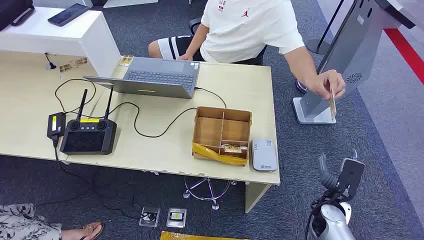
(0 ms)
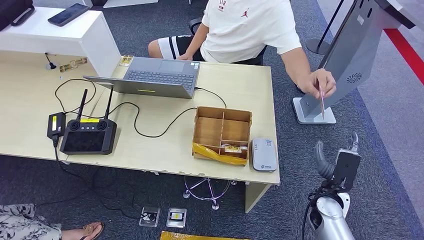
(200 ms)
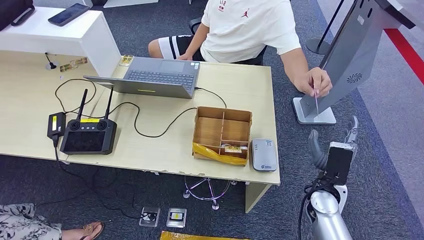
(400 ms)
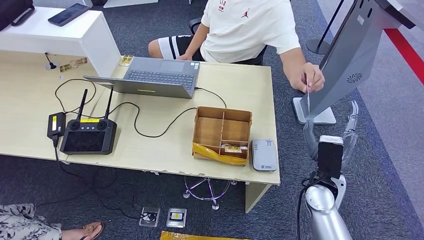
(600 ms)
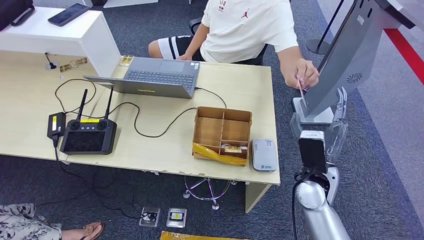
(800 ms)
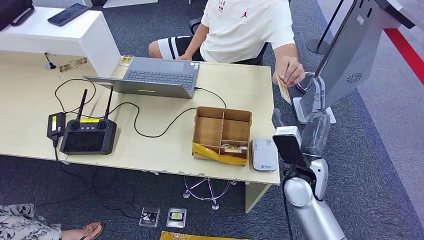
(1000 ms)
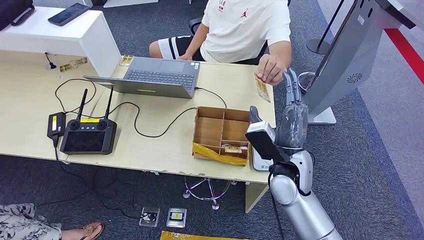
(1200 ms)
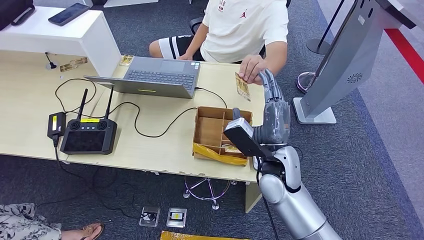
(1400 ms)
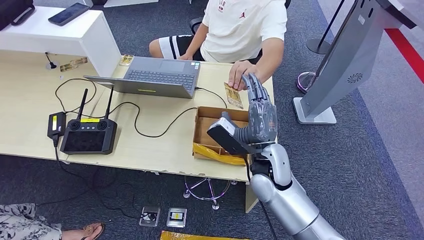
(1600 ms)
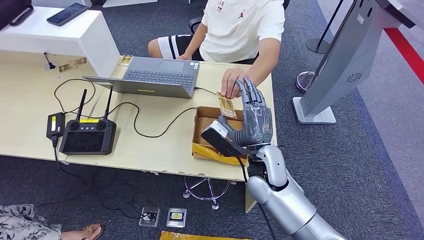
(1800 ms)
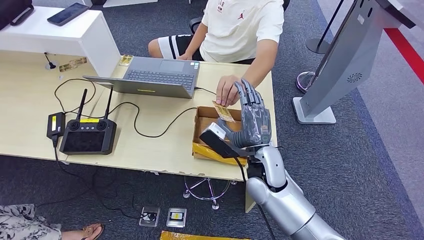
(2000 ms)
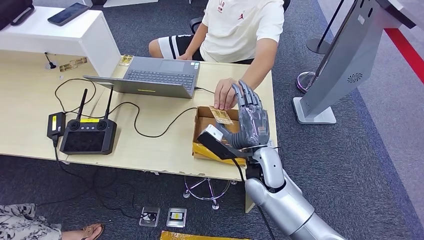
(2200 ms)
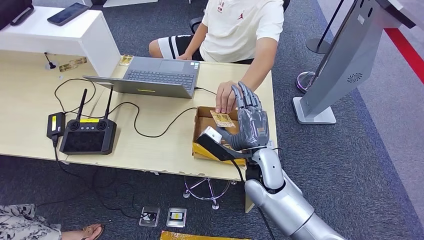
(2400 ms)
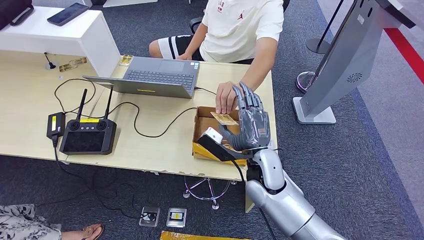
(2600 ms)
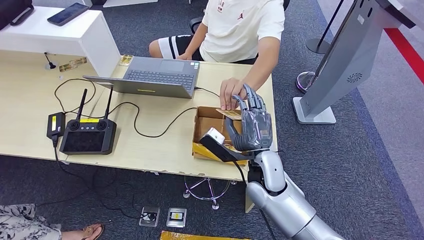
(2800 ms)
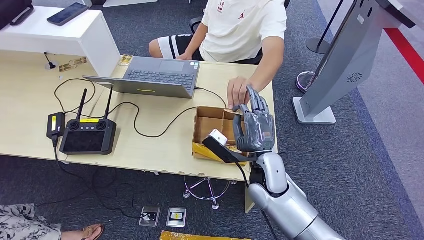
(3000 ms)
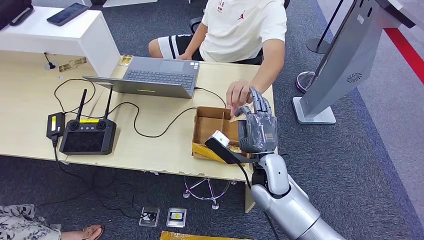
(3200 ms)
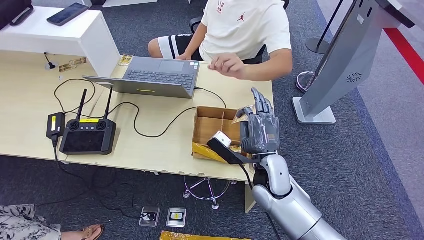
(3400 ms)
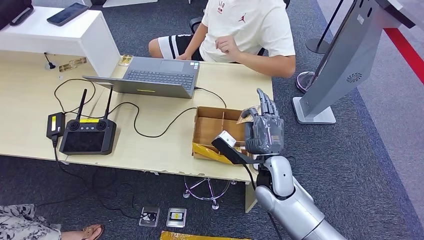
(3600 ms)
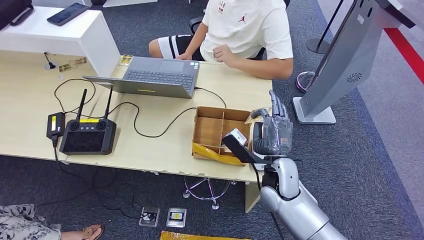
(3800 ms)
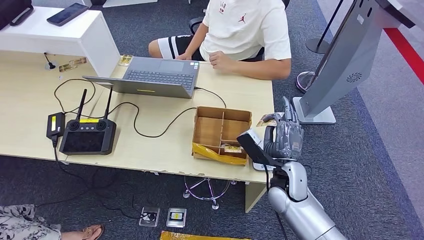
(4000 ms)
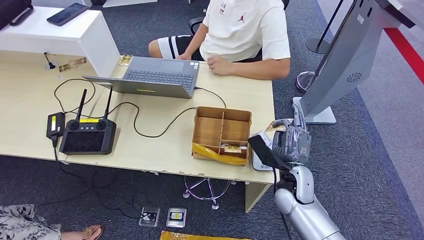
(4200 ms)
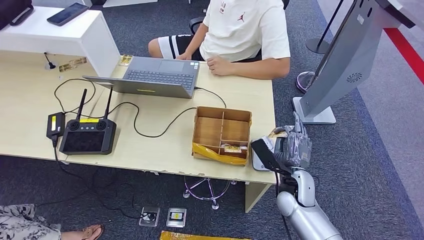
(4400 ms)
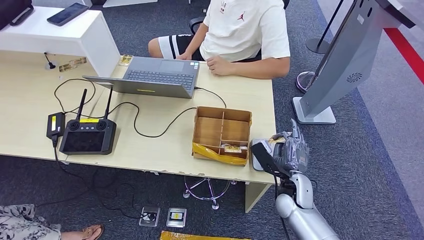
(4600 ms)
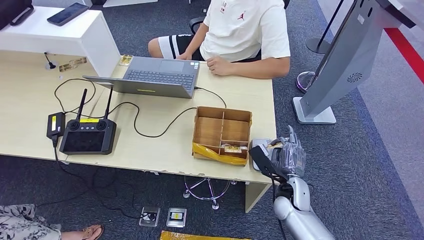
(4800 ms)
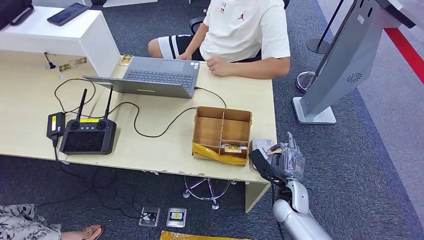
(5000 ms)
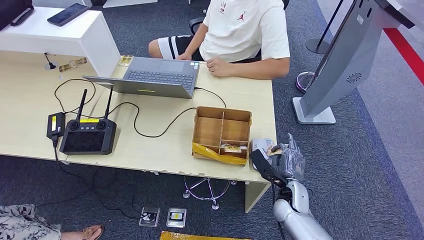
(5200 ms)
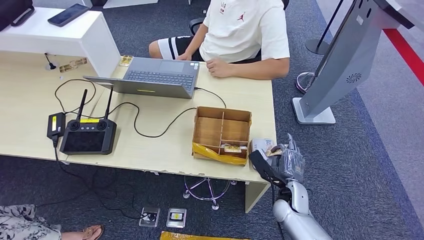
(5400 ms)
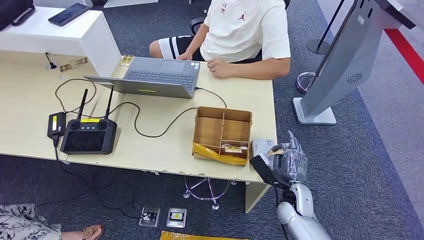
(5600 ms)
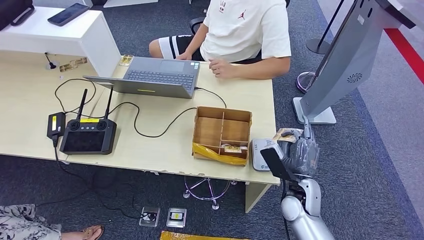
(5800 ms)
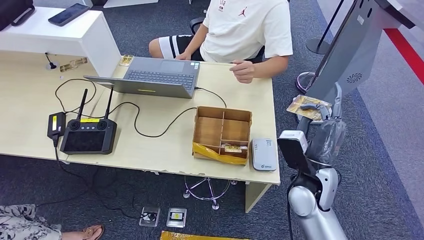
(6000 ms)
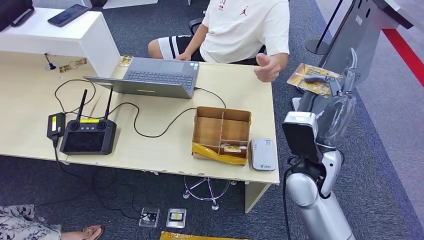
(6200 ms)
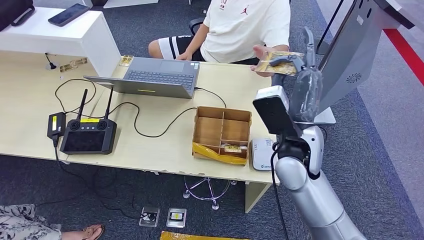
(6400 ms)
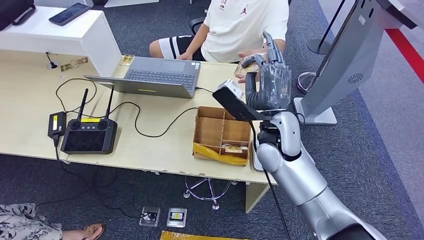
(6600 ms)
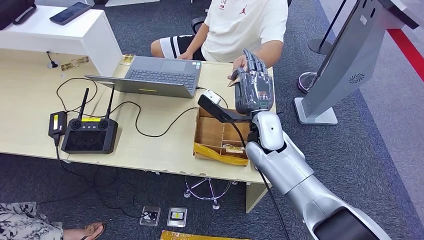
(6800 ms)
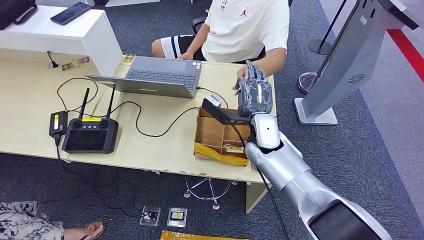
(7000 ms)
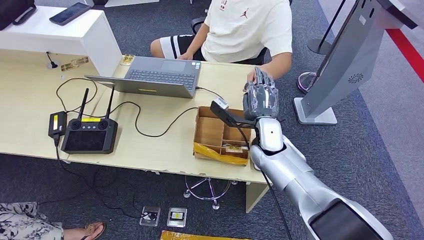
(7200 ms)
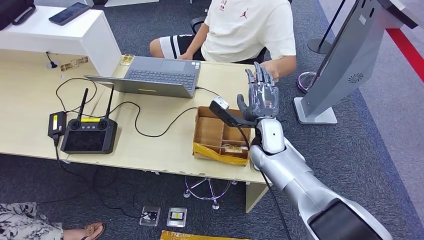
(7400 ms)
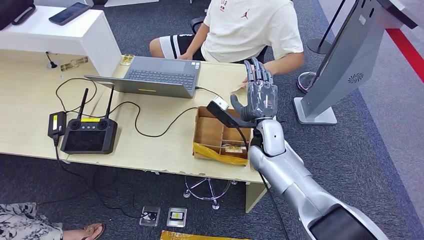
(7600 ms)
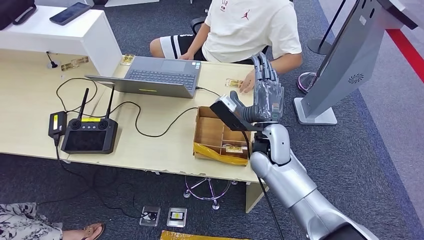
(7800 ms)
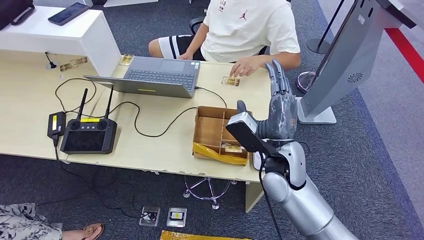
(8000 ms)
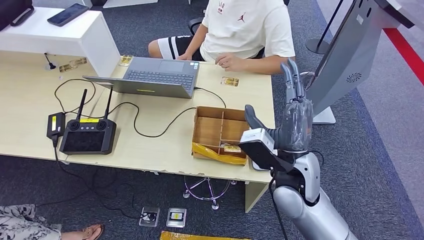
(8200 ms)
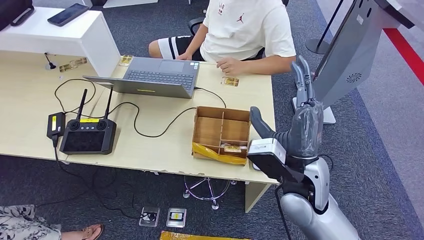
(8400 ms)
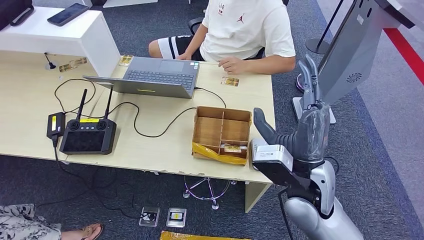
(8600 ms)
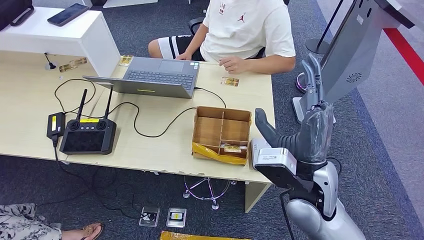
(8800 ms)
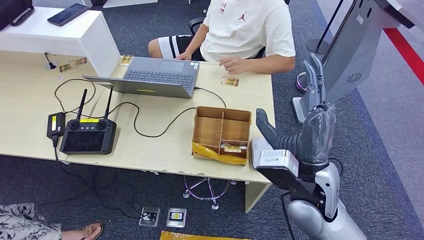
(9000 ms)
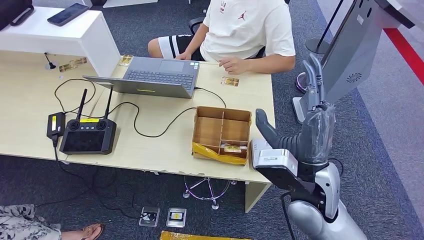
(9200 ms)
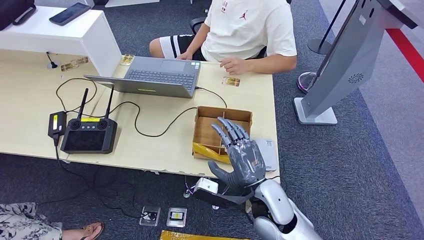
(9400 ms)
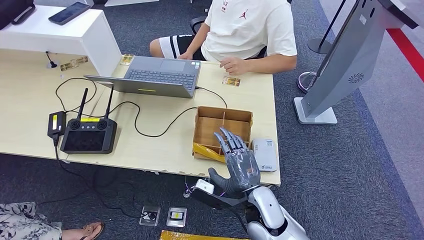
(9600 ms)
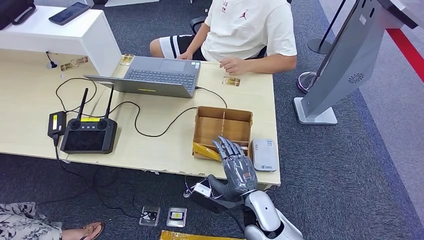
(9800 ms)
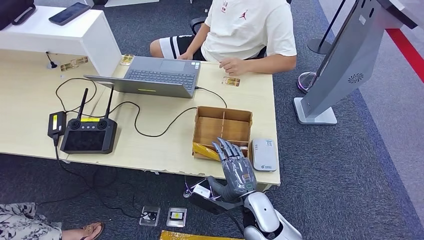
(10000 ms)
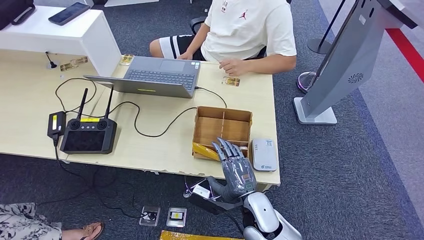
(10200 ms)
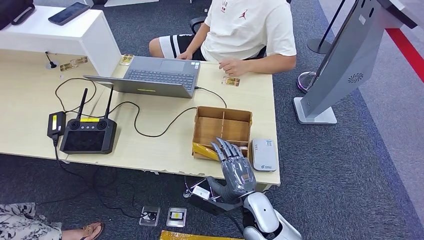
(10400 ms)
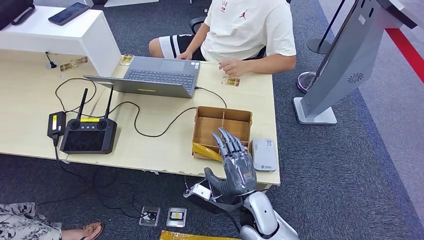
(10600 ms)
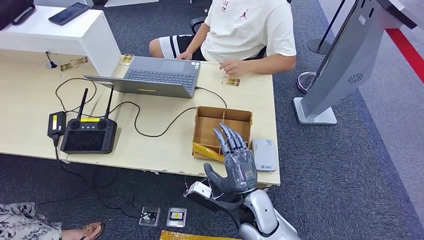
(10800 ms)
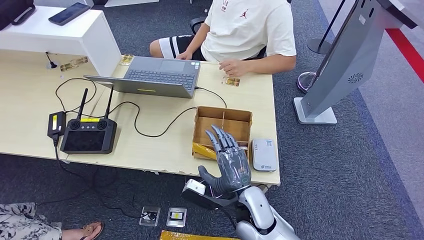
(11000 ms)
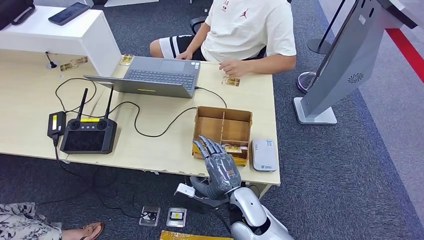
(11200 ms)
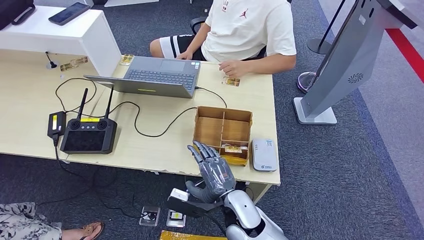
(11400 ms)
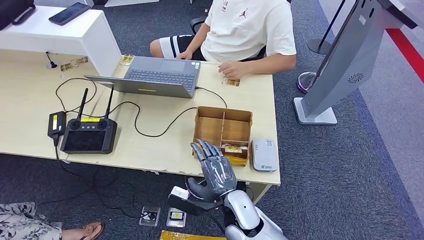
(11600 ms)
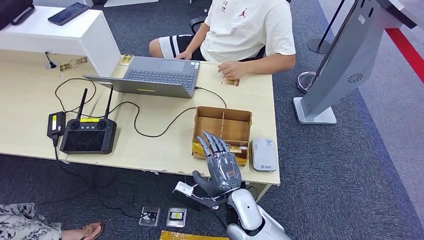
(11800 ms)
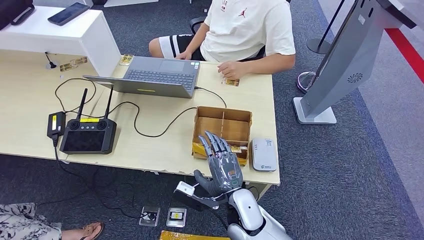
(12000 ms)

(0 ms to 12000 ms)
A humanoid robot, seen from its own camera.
Step, 0 ms - 2800 ms: Take the ID card from the person's hand.
Step, 3000 ms - 6000 ms: Place the ID card on the card reader.
Step, 6200 ms - 9600 ms: Hand the ID card to the person.
1600 ms - 3000 ms: There are only small adjustments of the hands.
3000 ms - 4400 ms: The right hand goes roughly 10 cm to the right and downward.
4400 ms - 6000 ms: The right hand travels upward by about 10 cm.
6000 ms - 7600 ms: The right hand travels forward and to the left by roughly 15 cm.
7600 ms - 9000 ms: The right hand heads backward and upward, covering about 15 cm.
9000 ms - 10400 ms: The right hand goes some 20 cm downward and to the left.
10400 ms - 12000 ms: The hands make only small movements.

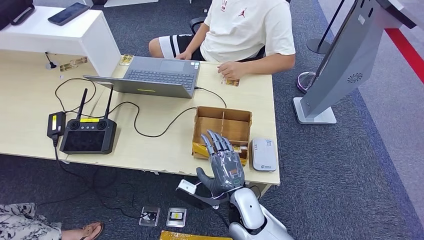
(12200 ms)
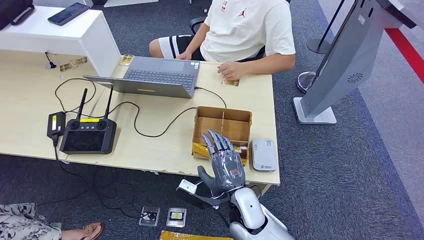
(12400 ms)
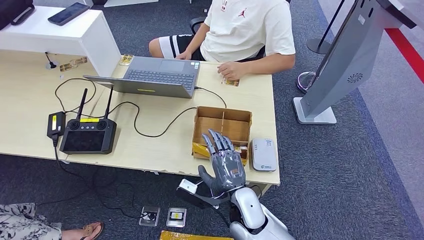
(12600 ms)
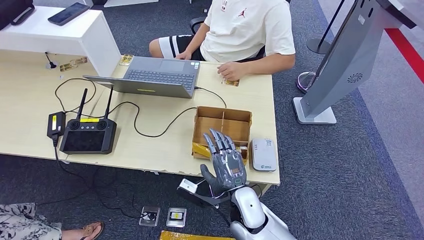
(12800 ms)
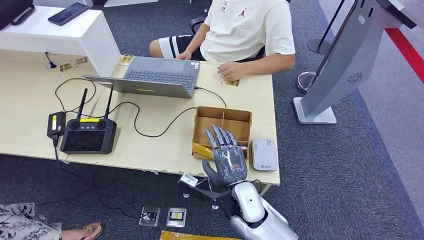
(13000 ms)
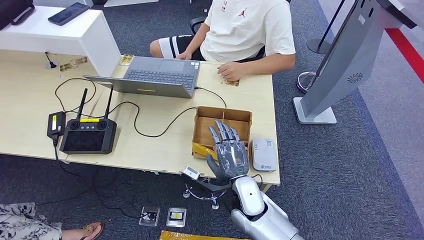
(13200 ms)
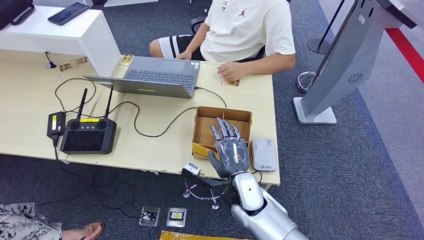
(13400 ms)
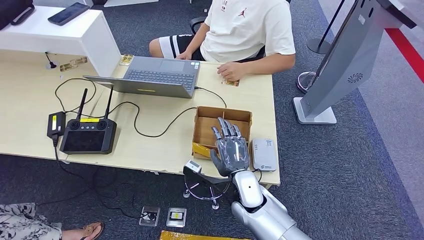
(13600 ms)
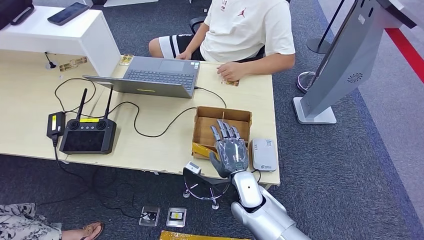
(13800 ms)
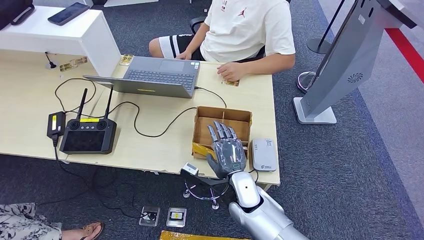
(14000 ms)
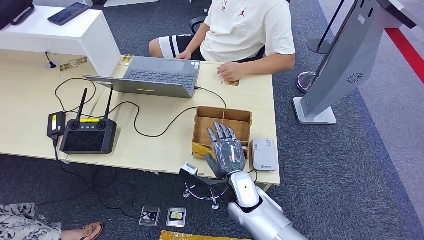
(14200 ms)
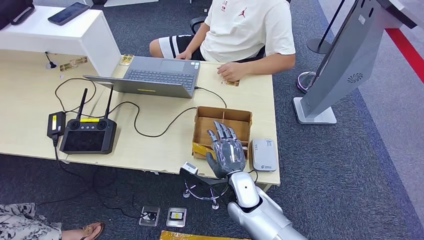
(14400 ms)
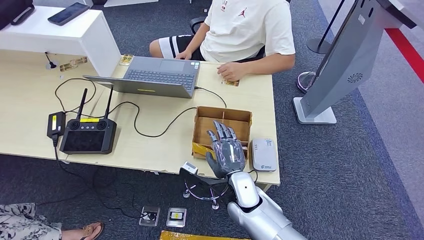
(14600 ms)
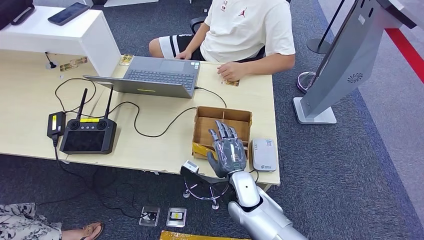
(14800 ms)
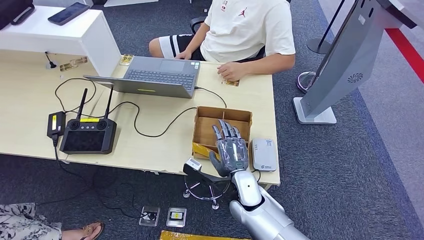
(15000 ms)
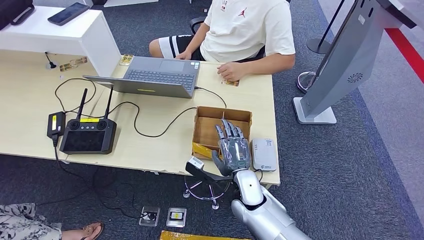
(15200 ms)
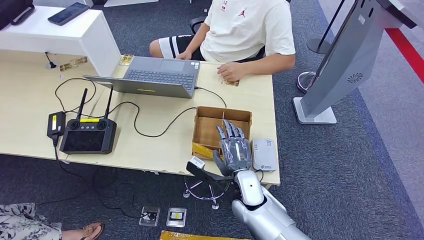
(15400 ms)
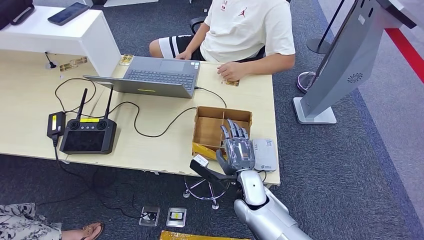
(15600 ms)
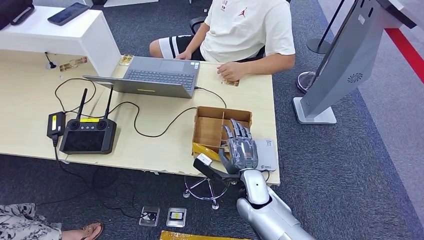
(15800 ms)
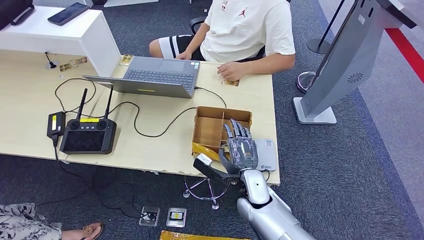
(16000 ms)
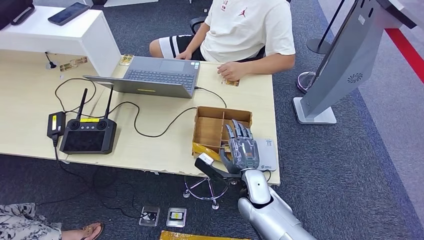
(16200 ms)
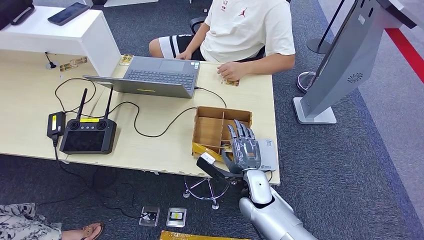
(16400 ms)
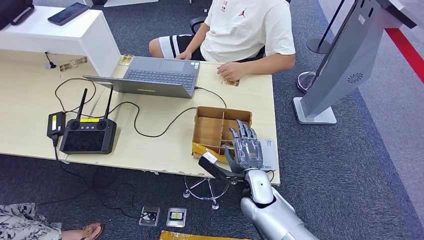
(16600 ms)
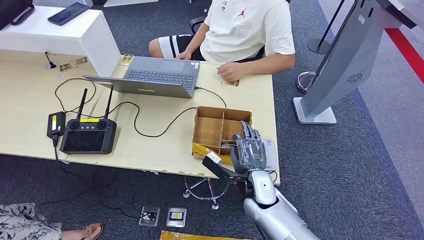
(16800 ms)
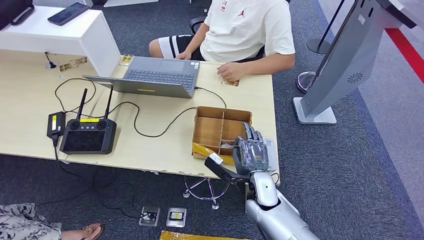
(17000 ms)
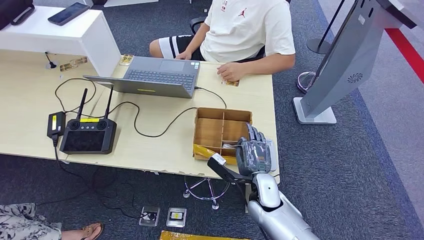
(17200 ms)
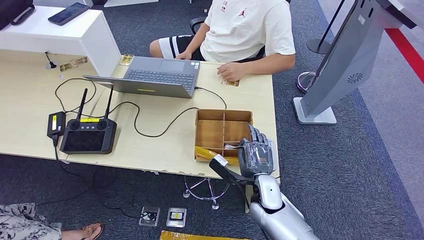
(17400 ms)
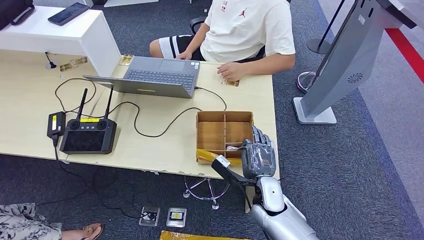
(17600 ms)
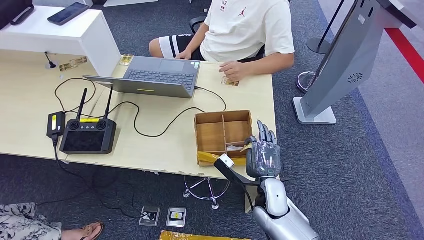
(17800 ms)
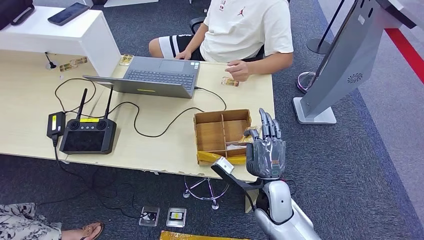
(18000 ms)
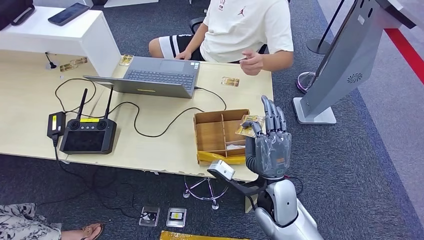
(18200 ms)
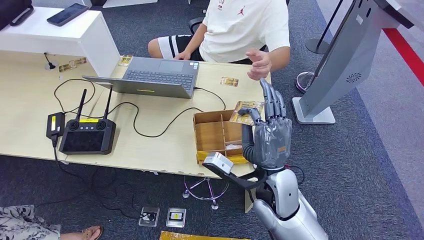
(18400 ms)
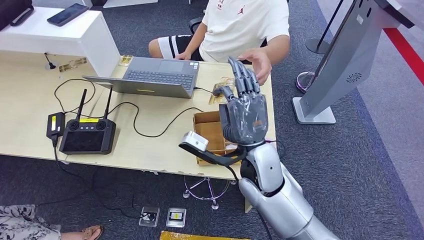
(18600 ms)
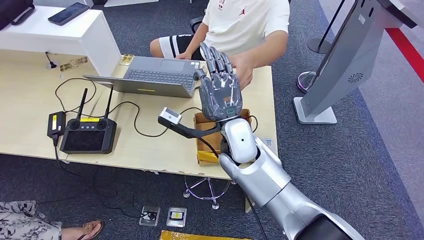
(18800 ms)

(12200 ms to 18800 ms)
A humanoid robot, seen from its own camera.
12200 ms - 13800 ms: The right hand shifts by roughly 5 cm.
13800 ms - 17200 ms: The hands move only a little.
17200 ms - 18800 ms: The right hand goes roughly 20 cm upward and to the left. Meanwhile the left hand is displaced to the right by roughly 5 cm.
